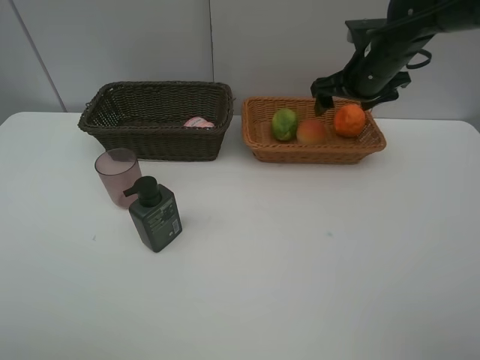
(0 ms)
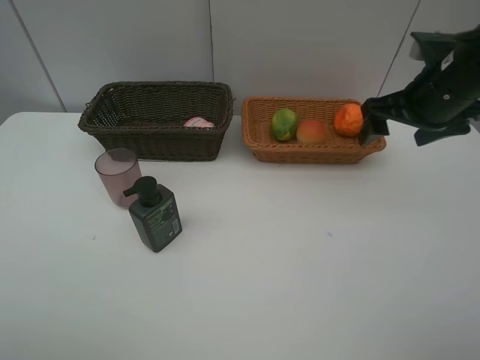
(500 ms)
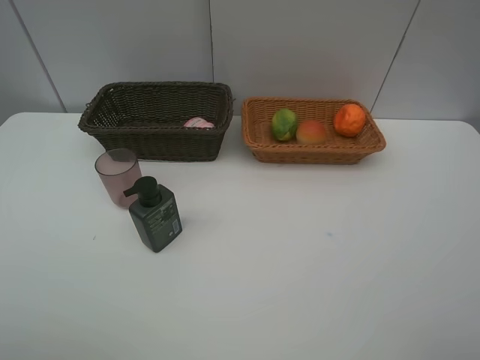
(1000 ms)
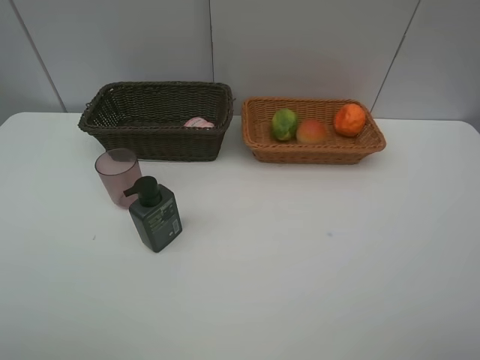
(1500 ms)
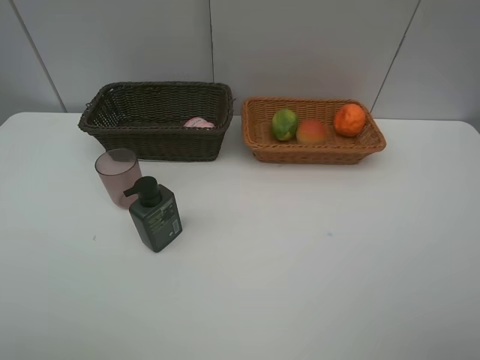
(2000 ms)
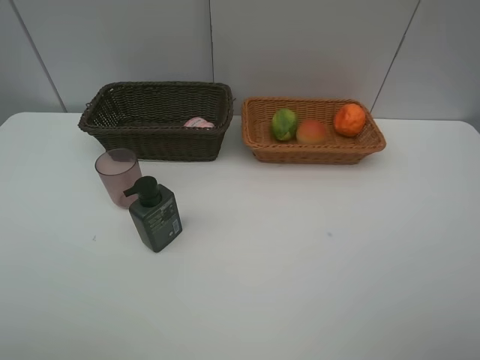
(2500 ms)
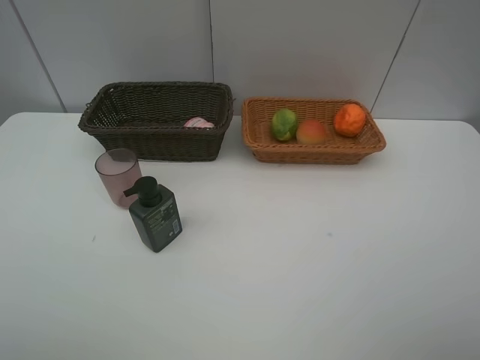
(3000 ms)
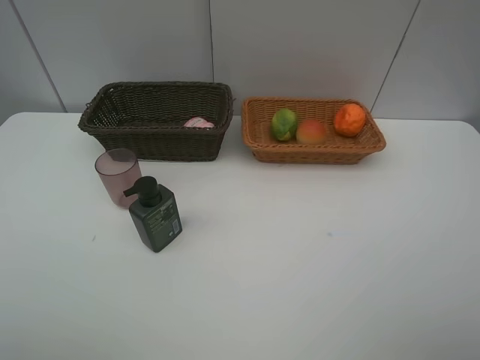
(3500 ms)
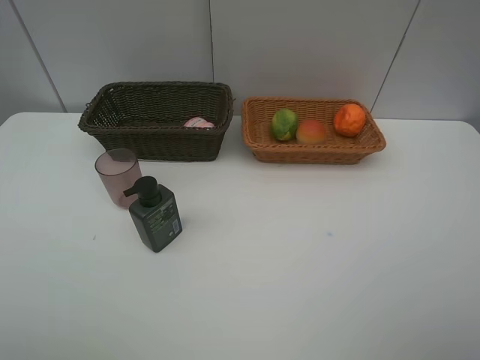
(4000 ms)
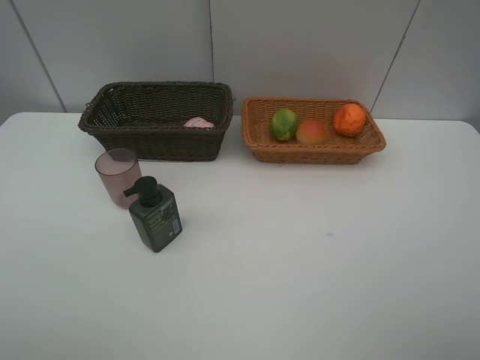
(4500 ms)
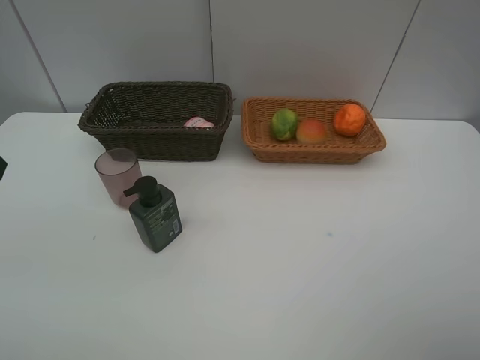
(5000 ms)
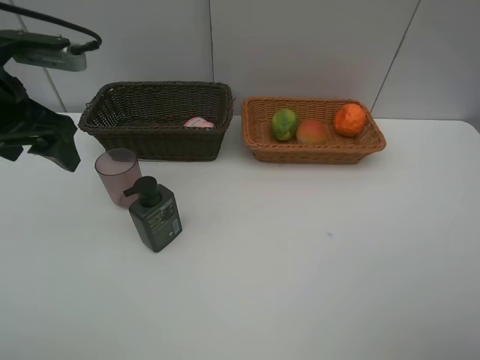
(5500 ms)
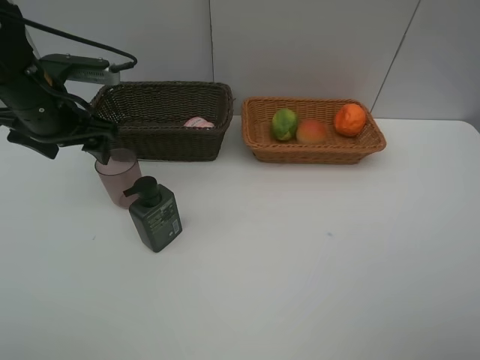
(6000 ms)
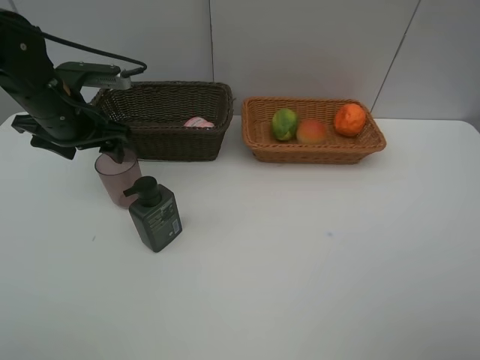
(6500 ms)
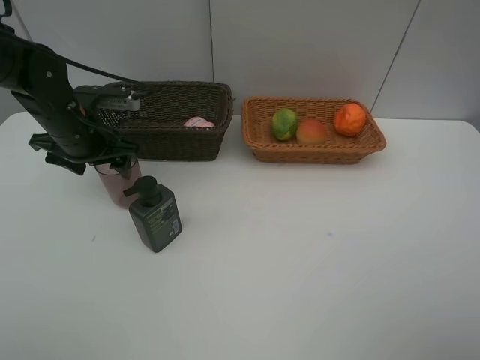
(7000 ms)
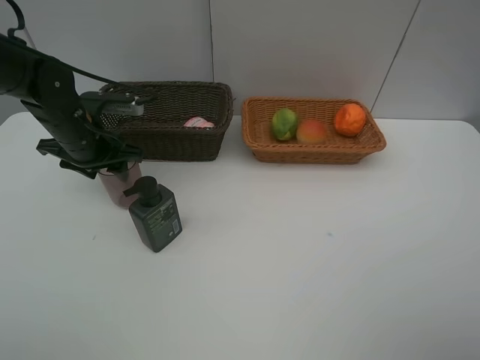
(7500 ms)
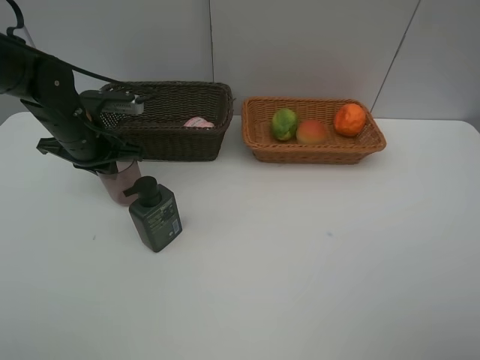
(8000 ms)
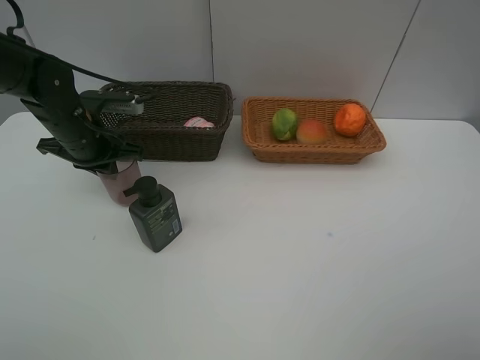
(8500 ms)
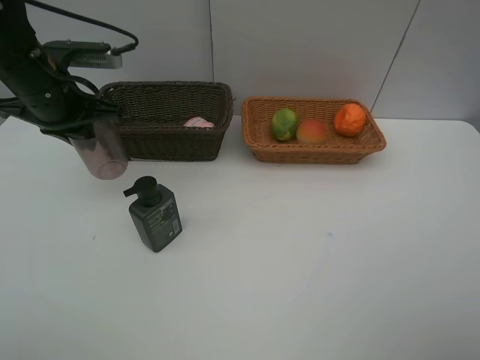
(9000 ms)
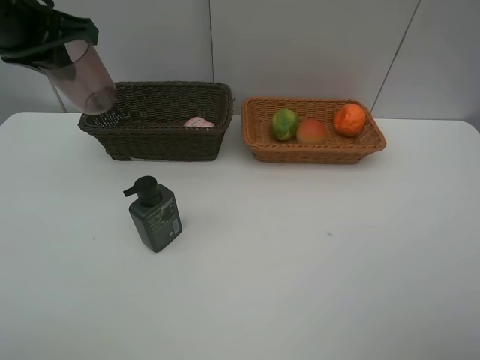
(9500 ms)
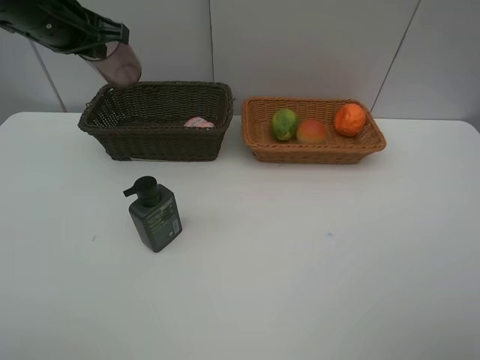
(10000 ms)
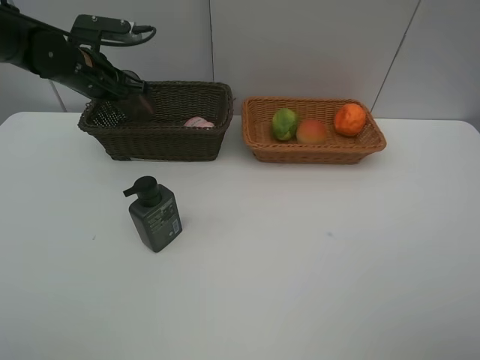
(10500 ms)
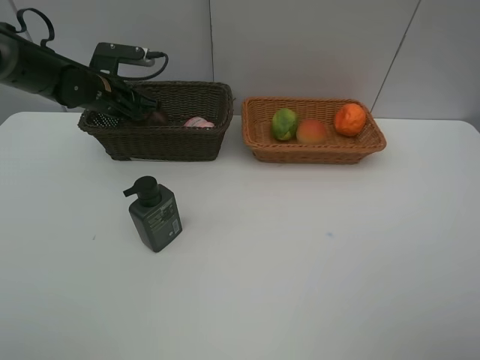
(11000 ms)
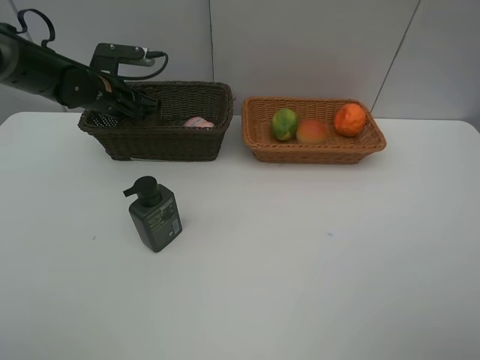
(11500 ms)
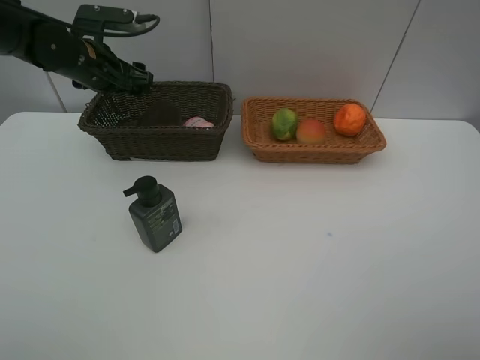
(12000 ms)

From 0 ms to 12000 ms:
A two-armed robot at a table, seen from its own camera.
Task of the whole recording: place multiple objects separately in different baskets.
From 0 ms to 2000 ms: The right gripper shifts some 40 cm backward.
From 4000 ms to 6000 ms: The left gripper shifts approximately 35 cm forward.
From 6000 ms to 8000 ms: The left gripper goes some 5 cm downward, and closes its fingers.
From 8000 ms to 10000 ms: The left gripper heads upward, covering some 15 cm.
From 10000 ms to 12000 ms: The left gripper moves downward, roughly 10 cm, and opens its fingers.

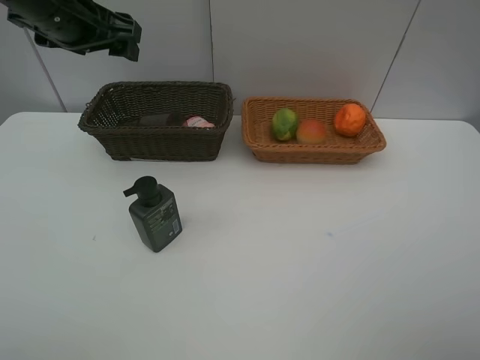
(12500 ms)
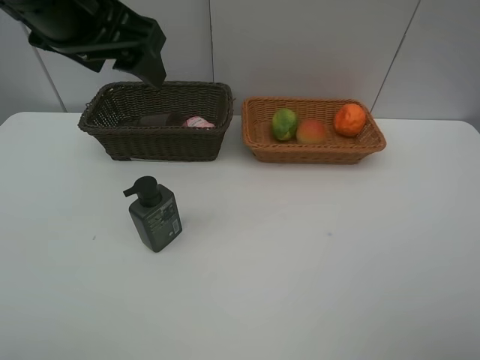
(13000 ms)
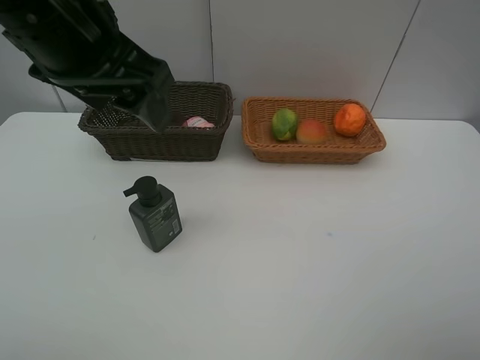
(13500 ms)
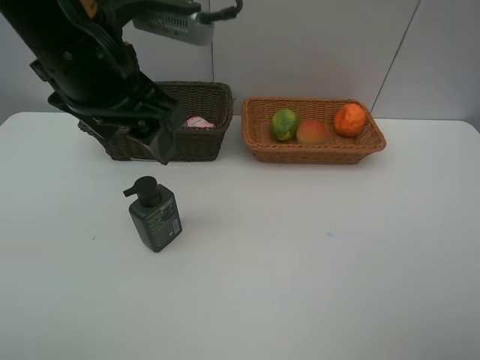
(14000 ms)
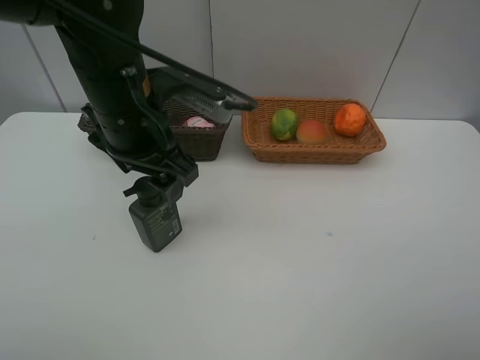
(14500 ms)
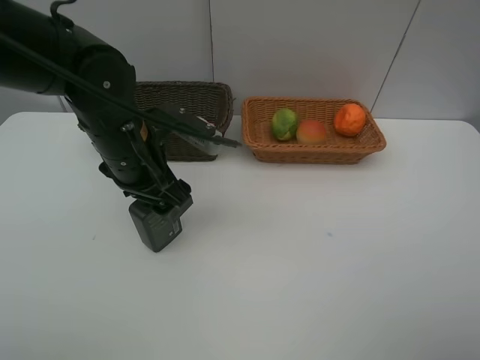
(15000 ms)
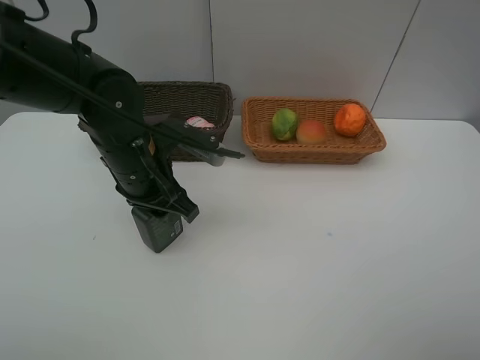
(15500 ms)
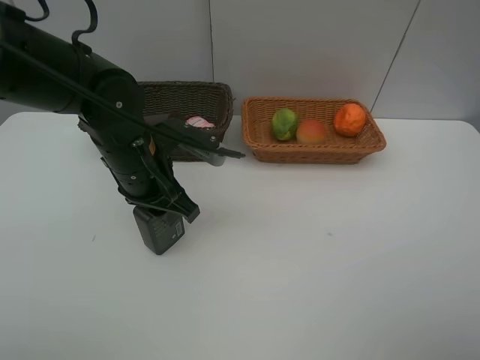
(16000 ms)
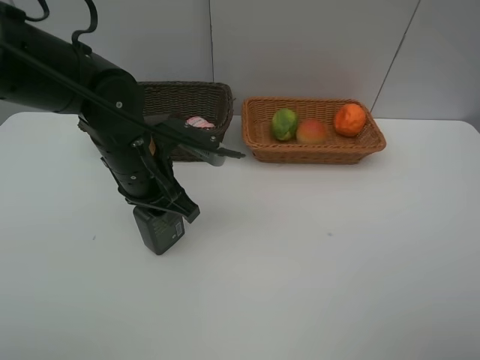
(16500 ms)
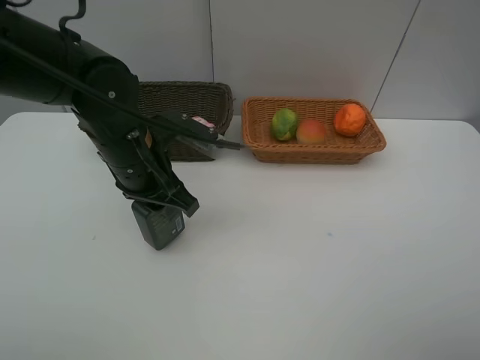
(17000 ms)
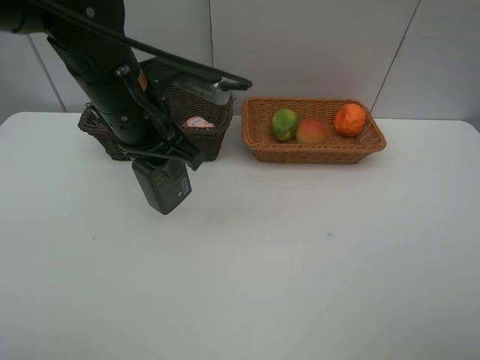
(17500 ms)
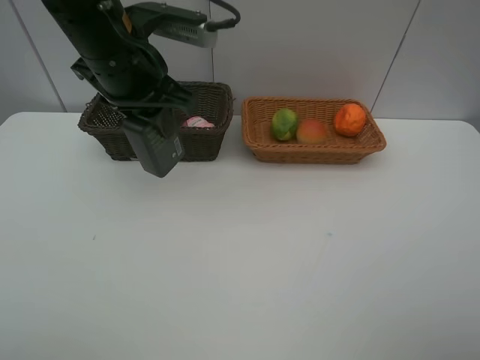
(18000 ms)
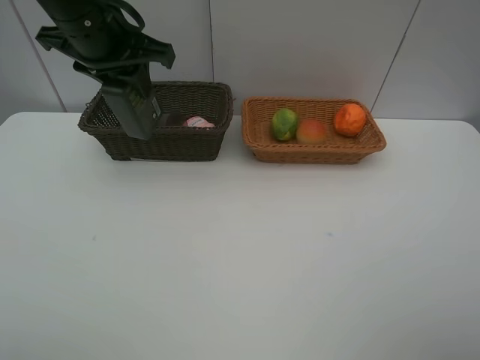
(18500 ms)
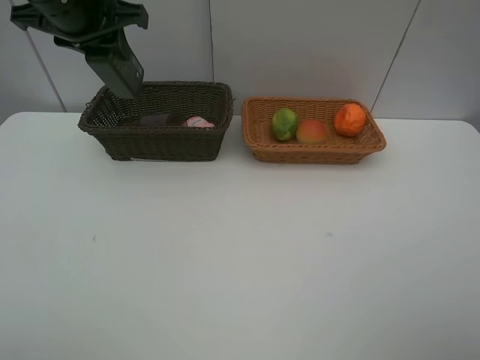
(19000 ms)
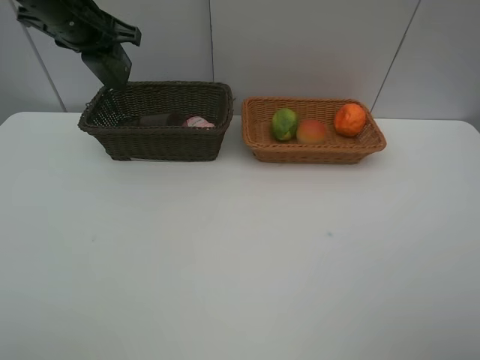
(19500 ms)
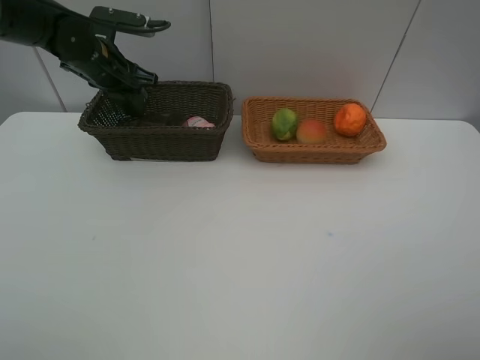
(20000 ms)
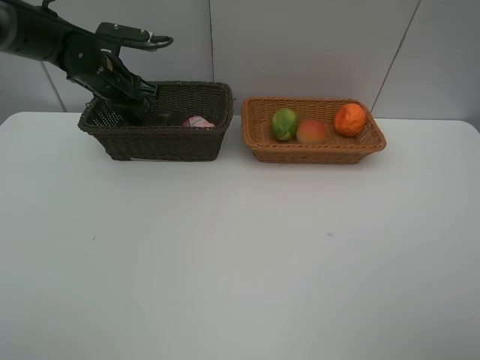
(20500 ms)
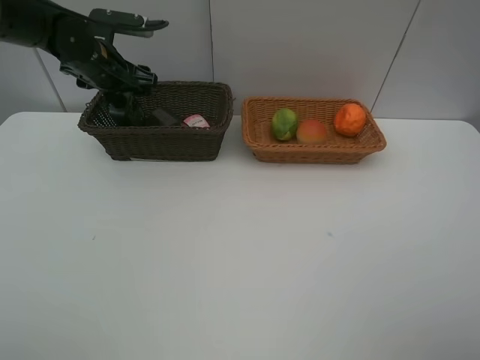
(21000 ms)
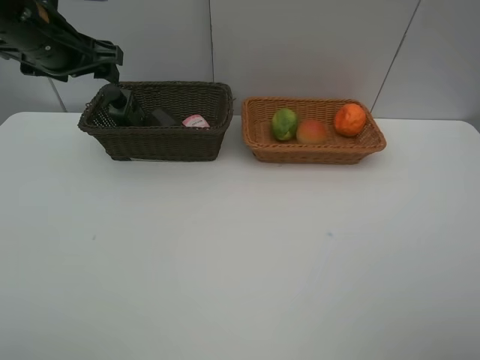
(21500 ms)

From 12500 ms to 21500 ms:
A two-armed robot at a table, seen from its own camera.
Task of the whole recording: place multiple objects separately in different baskets.
From 12500 ms to 14500 ms: The left gripper is displaced to the right, backward and downward by about 15 cm.
From 14500 ms to 17000 ms: The left gripper heads downward, covering roughly 5 cm, and closes.
From 17000 ms to 19500 ms: The left gripper heads forward, to the left and upward, covering some 20 cm.
From 19500 ms to 21500 ms: The left gripper shifts about 5 cm backward, travels downward and back again, approximately 10 cm each way, and opens its fingers.
